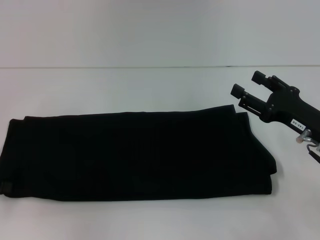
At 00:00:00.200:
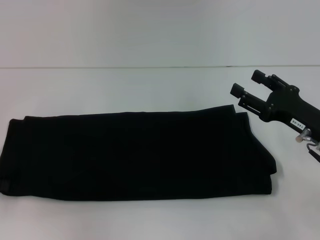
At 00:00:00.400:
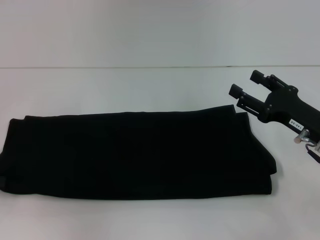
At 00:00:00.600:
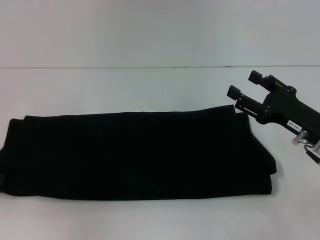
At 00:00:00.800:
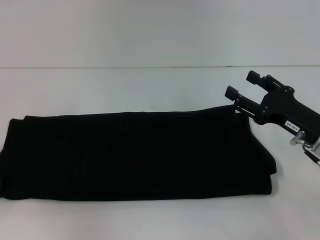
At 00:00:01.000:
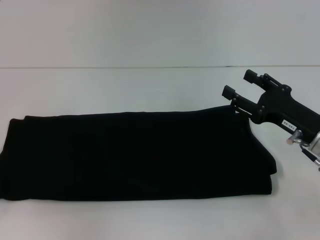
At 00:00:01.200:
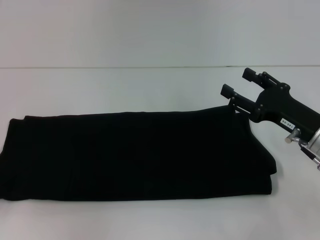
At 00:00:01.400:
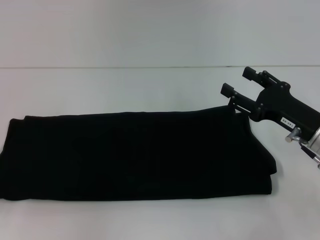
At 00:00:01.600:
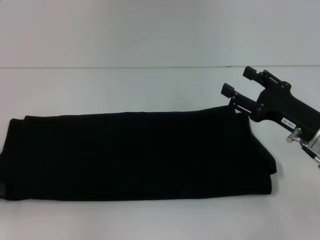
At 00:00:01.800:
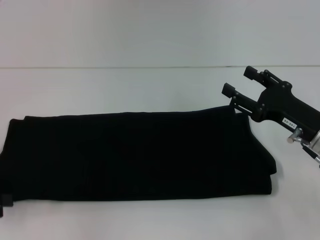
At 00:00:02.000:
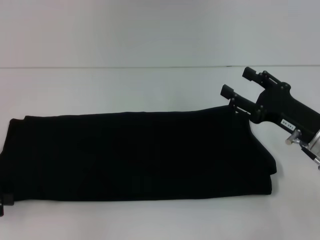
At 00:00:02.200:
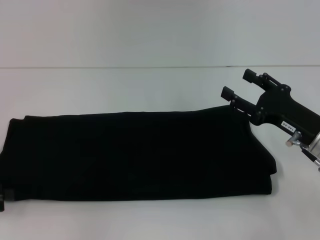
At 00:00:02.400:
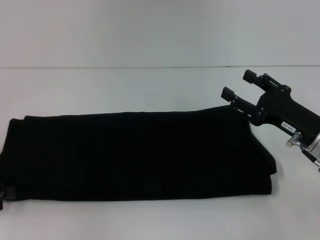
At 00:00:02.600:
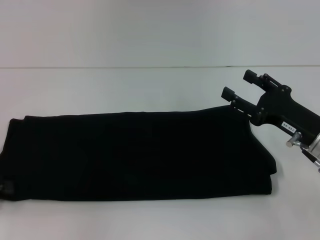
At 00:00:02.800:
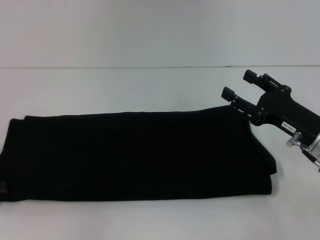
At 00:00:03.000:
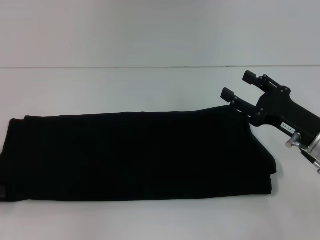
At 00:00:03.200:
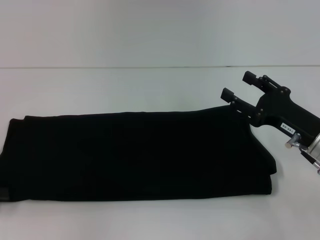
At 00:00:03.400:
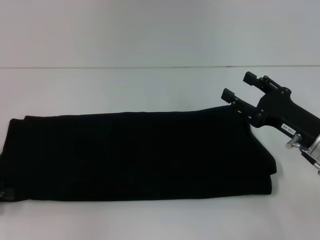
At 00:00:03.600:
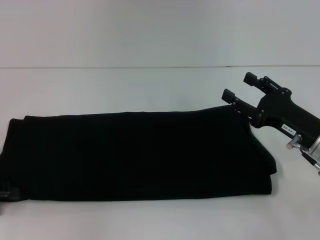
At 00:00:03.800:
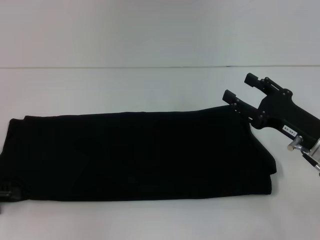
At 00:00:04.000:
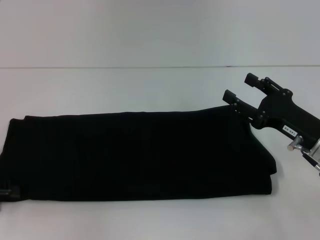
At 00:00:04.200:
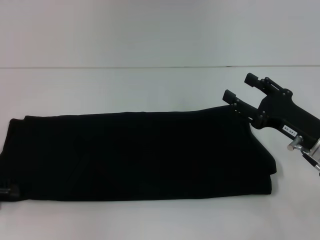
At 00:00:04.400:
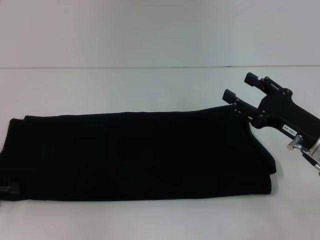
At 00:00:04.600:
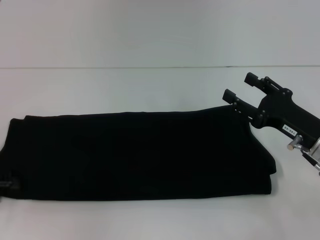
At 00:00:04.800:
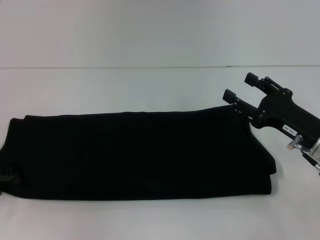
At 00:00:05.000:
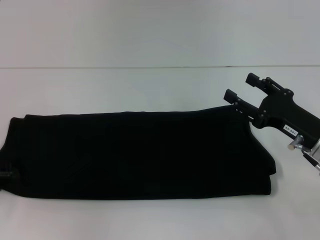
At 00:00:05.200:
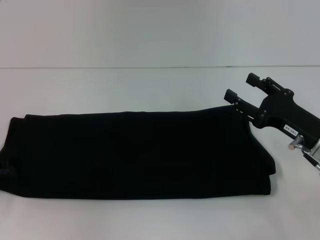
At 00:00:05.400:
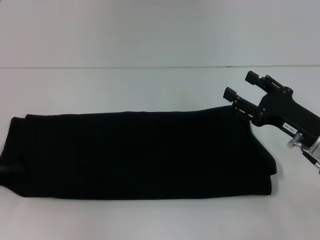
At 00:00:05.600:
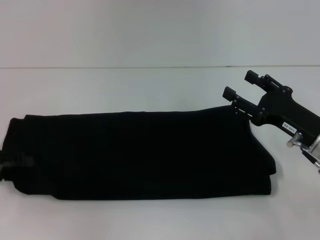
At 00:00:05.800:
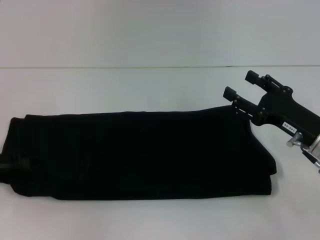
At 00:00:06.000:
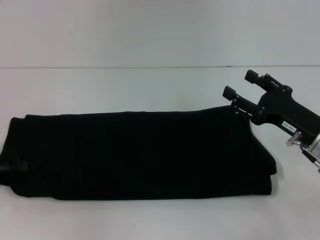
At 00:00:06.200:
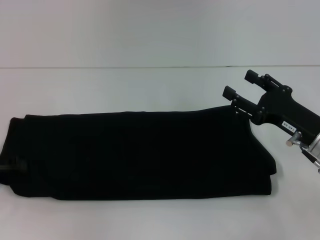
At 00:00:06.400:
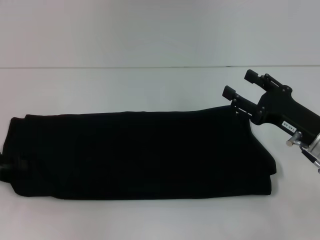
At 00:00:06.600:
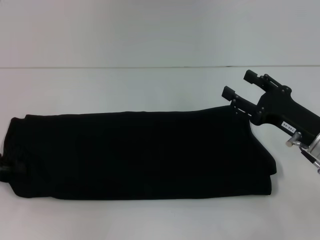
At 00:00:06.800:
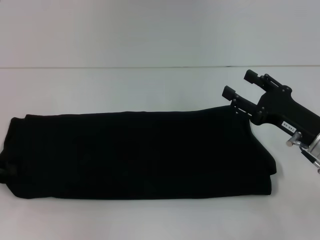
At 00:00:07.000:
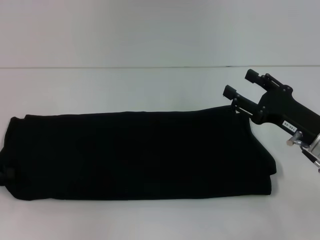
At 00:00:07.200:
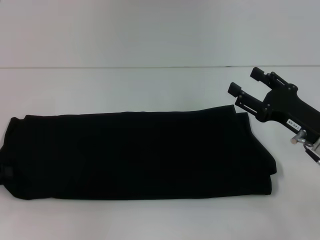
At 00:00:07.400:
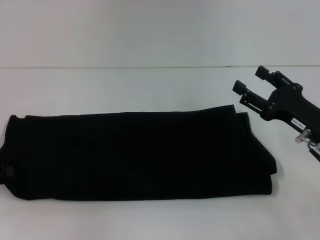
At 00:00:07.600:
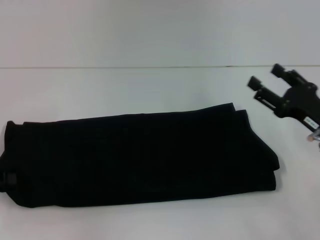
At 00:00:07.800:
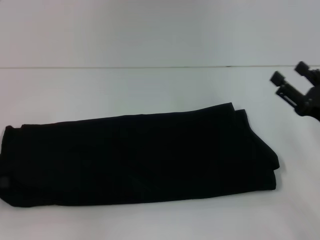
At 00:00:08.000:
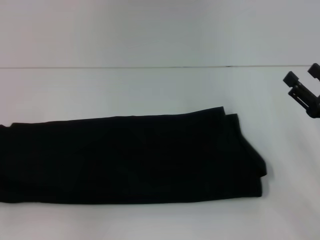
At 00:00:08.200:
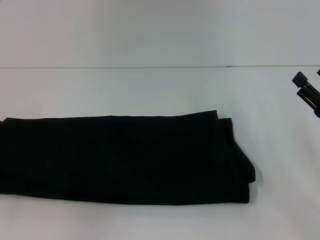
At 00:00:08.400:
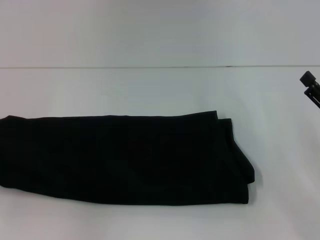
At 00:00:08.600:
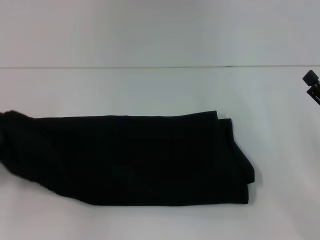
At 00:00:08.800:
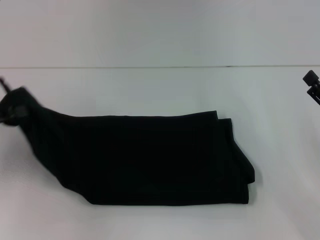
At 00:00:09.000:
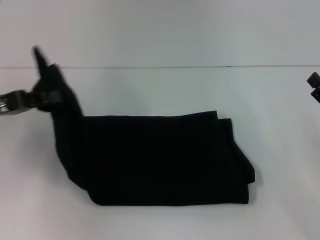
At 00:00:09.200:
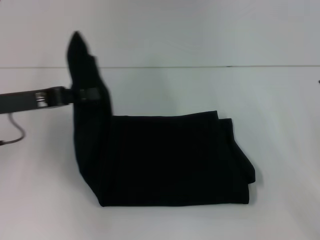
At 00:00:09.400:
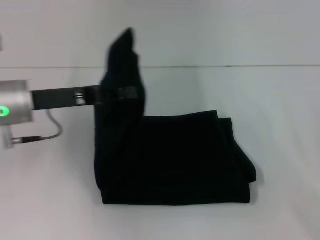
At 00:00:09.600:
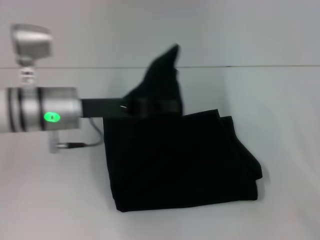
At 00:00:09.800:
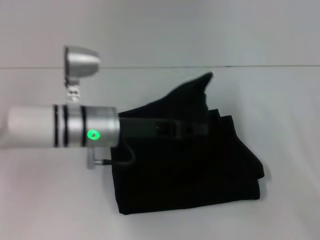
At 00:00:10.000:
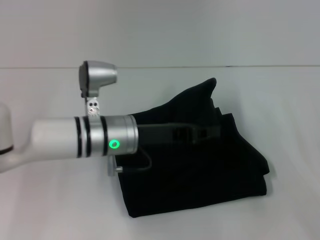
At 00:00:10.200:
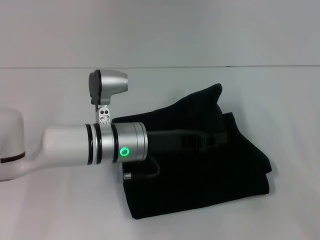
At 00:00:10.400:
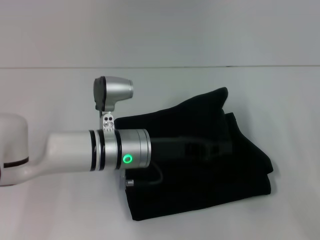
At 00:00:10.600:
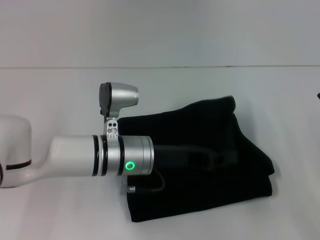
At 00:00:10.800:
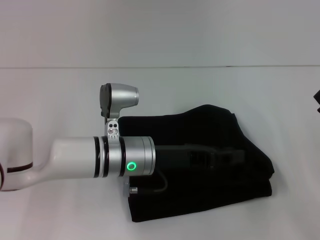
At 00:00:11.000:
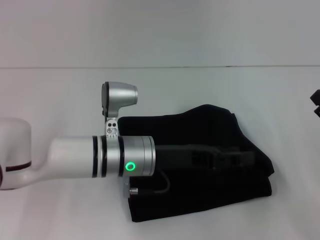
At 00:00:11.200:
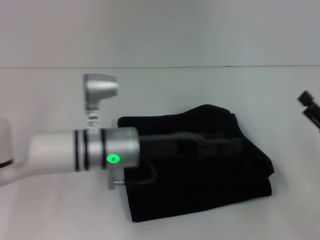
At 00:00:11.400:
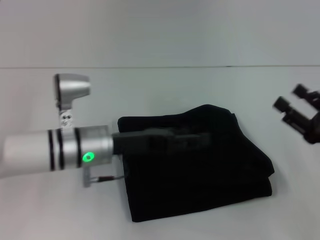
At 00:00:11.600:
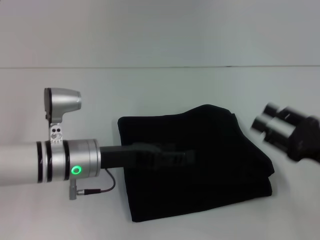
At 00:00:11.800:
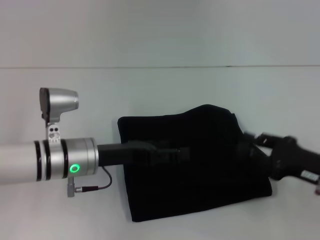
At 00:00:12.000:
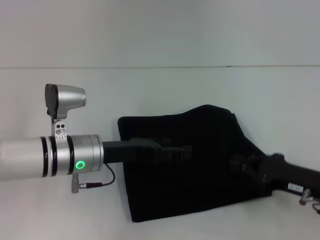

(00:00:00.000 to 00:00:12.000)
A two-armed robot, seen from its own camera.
Step, 00:00:00.000 - 00:00:12.000: Fold the clothes with your left hand.
00:00:03.000 - 00:00:06.000: The grippers stay close to where they were, moving slightly.
00:00:06.000 - 00:00:07.600: The left gripper closes.
00:00:07.600 - 00:00:09.000: The right gripper ends up about 5 cm from where it was. The left gripper travels to the right and upward by approximately 10 cm.
00:00:09.000 - 00:00:10.400: The left gripper travels to the right by some 25 cm.
00:00:10.400 - 00:00:12.000: The grippers both shift to the left by approximately 5 cm. The right gripper closes its fingers. Meanwhile the left gripper opens its fingers.

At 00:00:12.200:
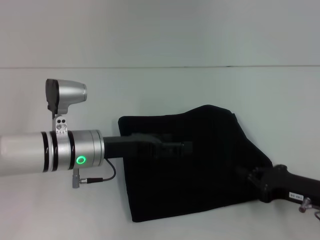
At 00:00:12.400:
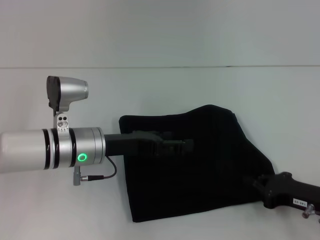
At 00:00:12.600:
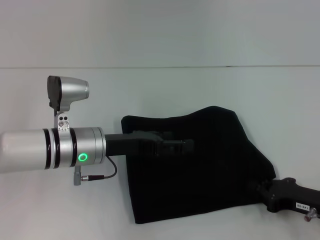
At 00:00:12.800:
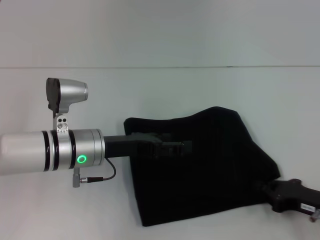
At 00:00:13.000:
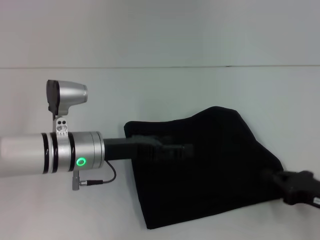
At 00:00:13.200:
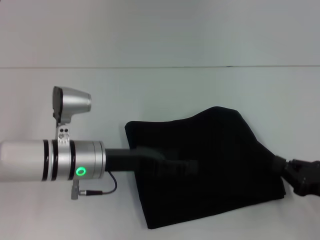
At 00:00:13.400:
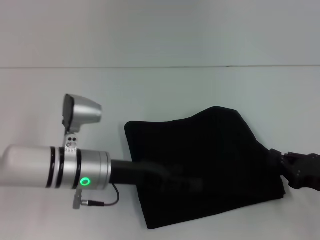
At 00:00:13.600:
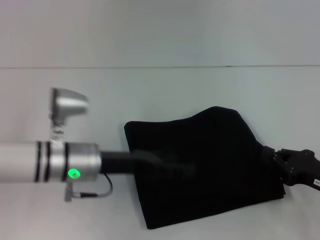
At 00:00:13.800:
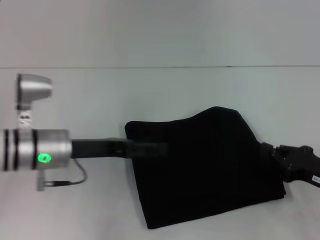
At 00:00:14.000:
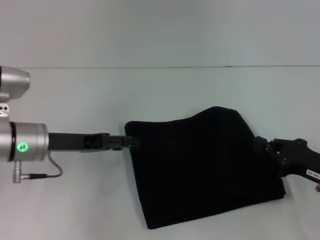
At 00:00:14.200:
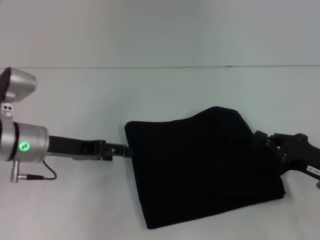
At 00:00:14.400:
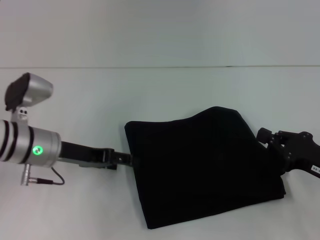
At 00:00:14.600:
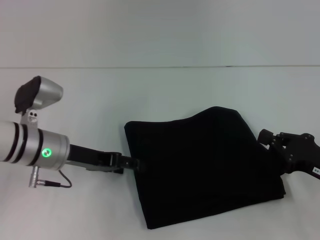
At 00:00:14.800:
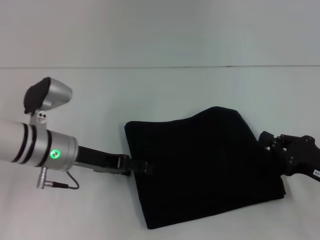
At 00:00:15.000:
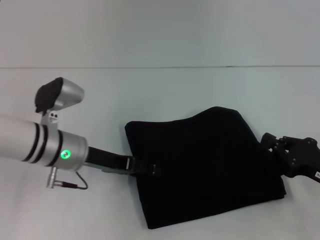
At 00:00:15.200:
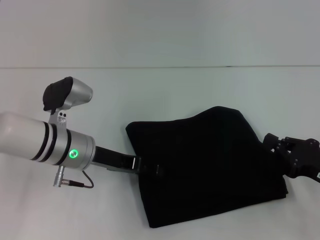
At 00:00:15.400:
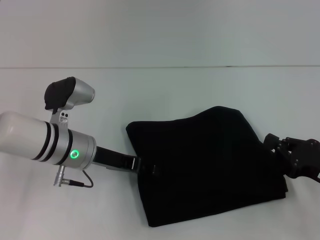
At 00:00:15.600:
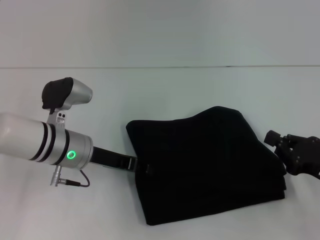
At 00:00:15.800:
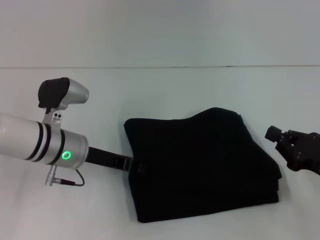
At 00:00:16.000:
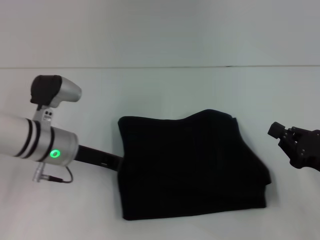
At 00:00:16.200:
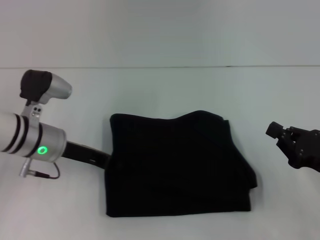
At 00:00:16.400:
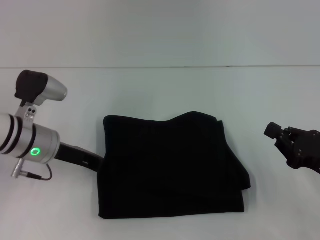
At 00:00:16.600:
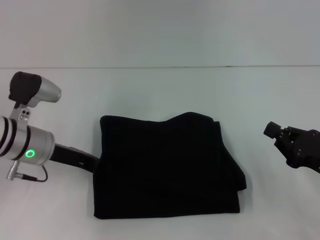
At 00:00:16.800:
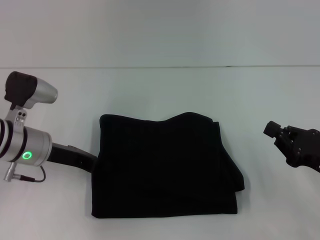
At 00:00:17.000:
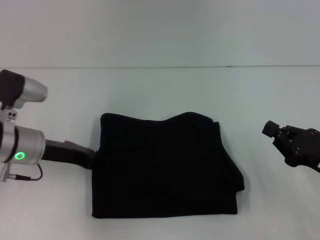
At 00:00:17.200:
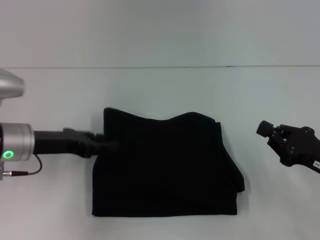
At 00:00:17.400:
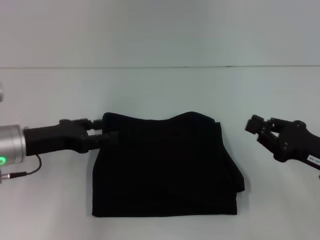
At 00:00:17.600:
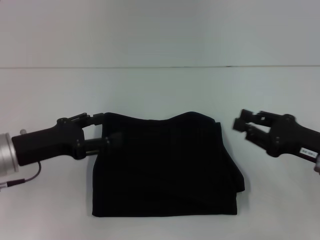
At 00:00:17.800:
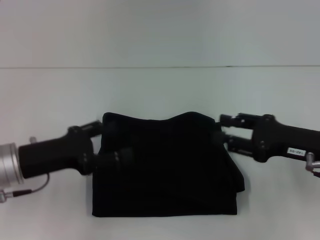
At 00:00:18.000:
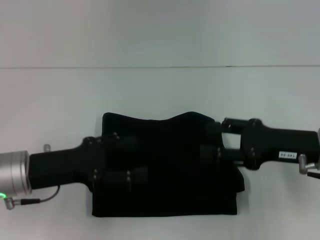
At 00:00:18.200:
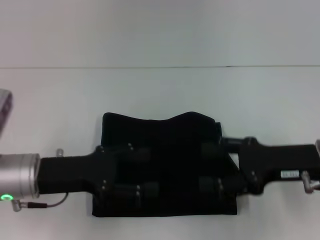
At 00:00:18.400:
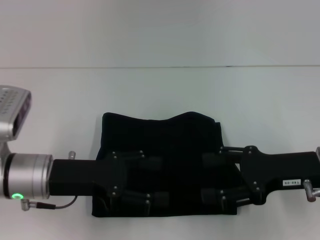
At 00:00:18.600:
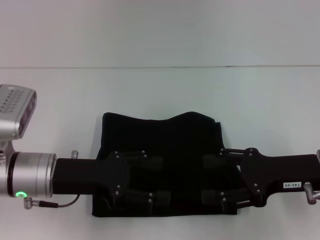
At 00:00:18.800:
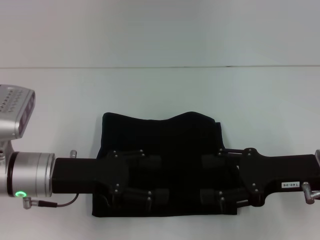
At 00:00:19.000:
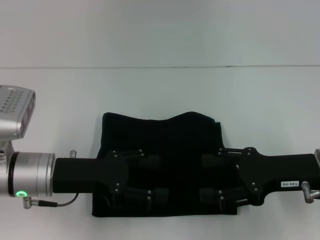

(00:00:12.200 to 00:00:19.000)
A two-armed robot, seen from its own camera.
00:00:12.200 - 00:00:13.600: The grippers move only a little.
00:00:13.600 - 00:00:15.000: The left gripper goes to the left and returns, approximately 10 cm each way.
00:00:15.000 - 00:00:16.200: The left gripper closes.
00:00:16.200 - 00:00:17.600: The left gripper travels backward and to the left by some 10 cm, and opens up.
00:00:17.600 - 00:00:19.000: The left gripper shifts roughly 5 cm to the right; the right gripper opens.
